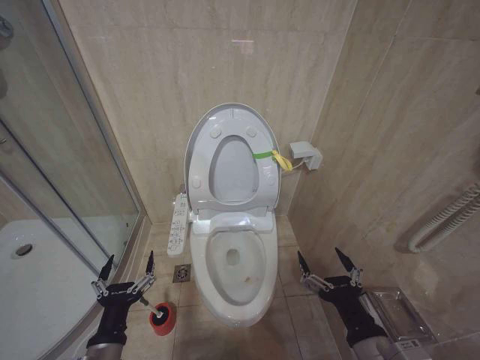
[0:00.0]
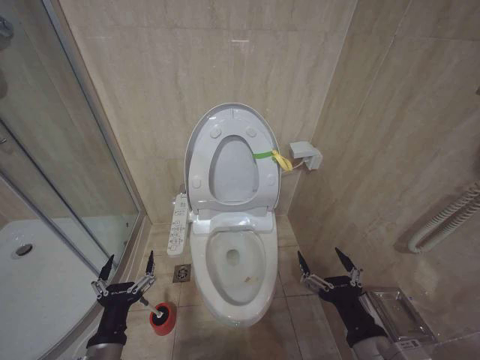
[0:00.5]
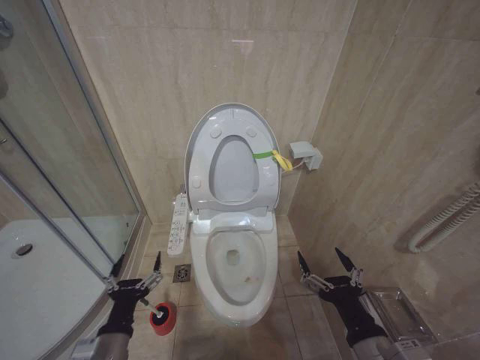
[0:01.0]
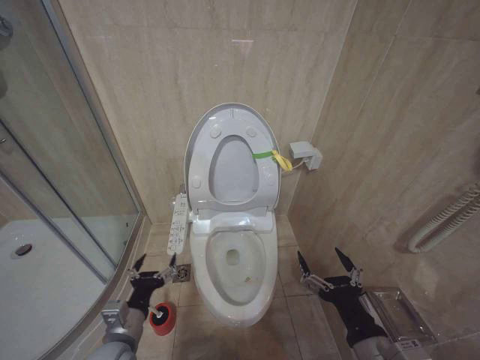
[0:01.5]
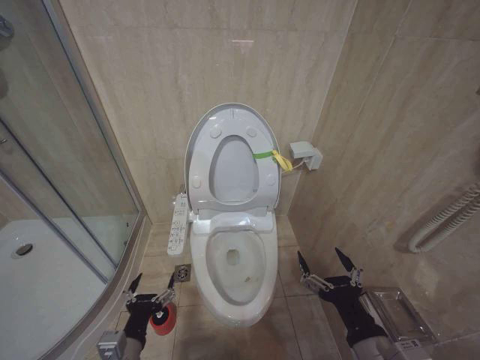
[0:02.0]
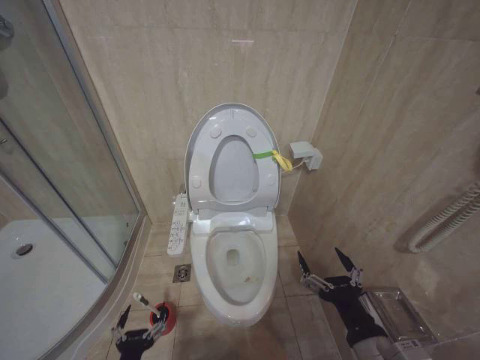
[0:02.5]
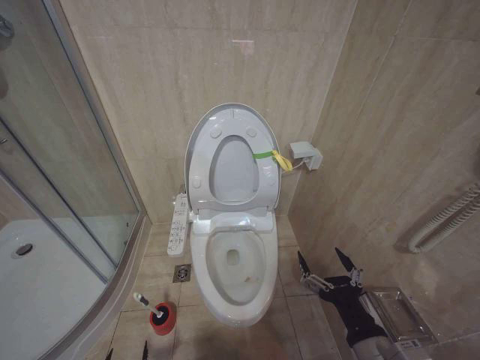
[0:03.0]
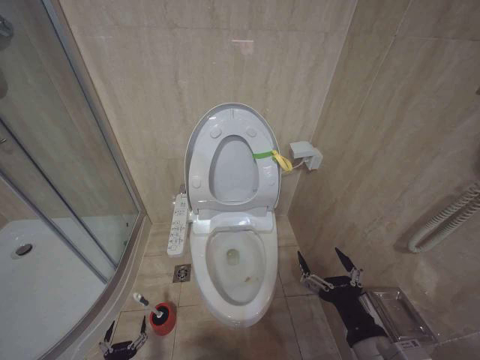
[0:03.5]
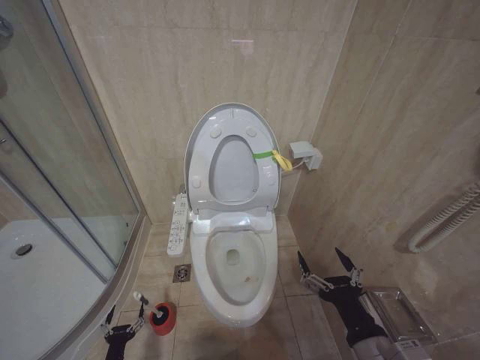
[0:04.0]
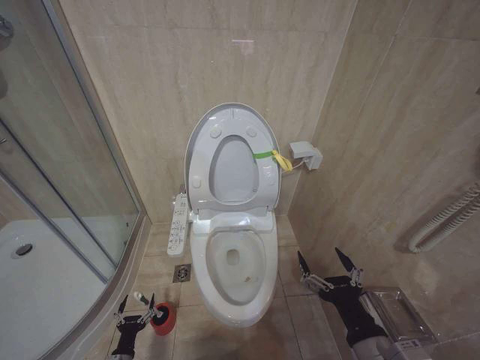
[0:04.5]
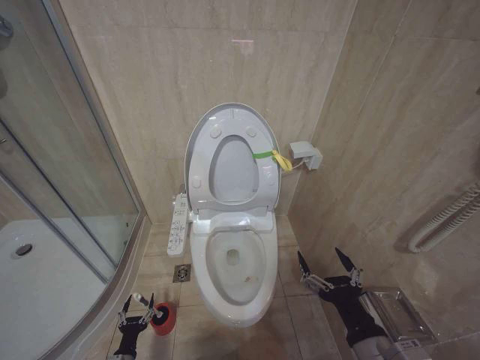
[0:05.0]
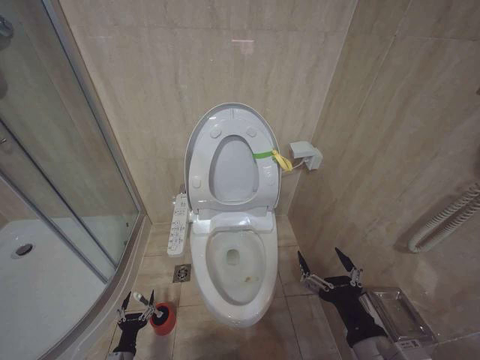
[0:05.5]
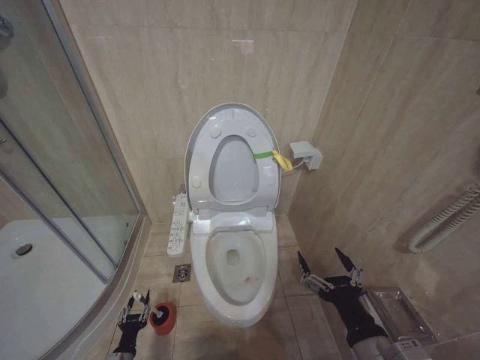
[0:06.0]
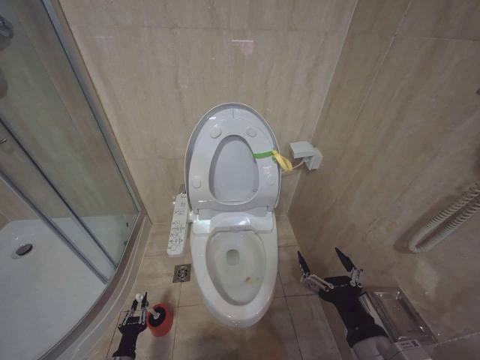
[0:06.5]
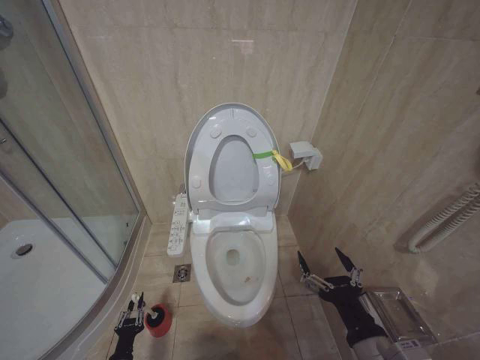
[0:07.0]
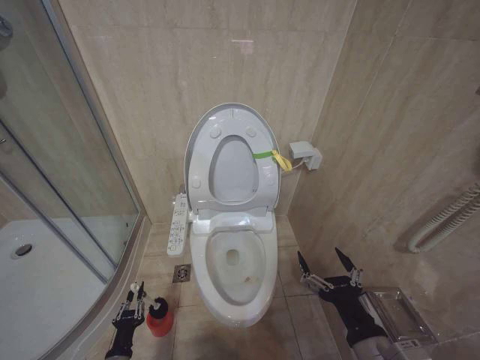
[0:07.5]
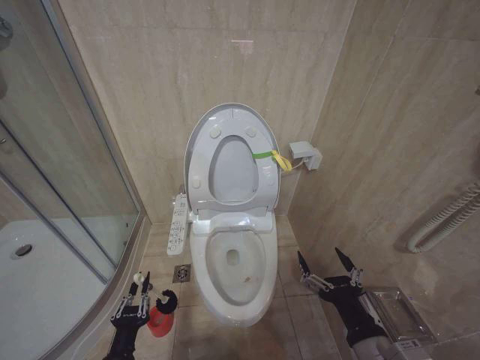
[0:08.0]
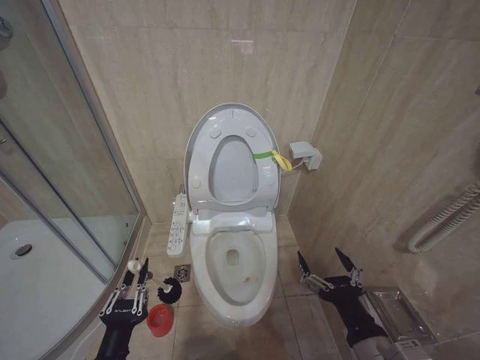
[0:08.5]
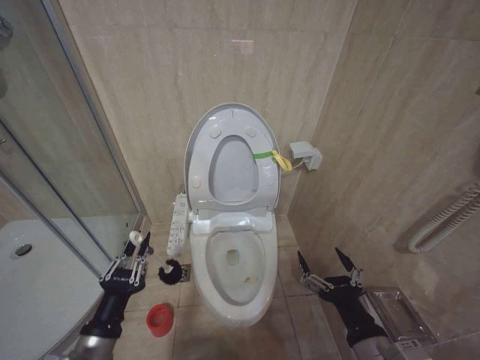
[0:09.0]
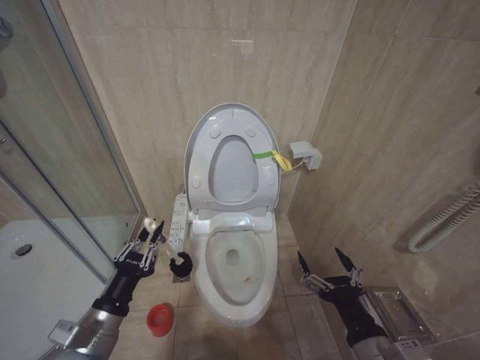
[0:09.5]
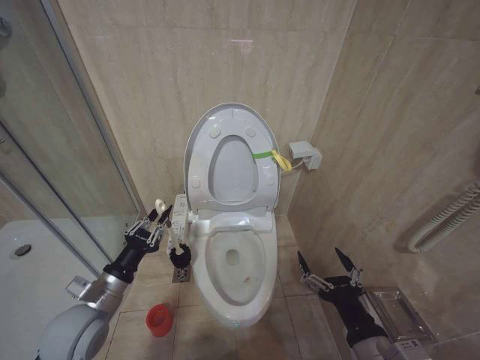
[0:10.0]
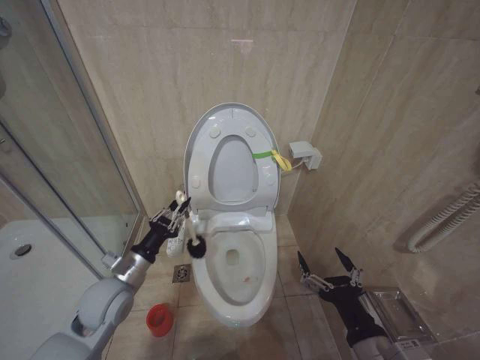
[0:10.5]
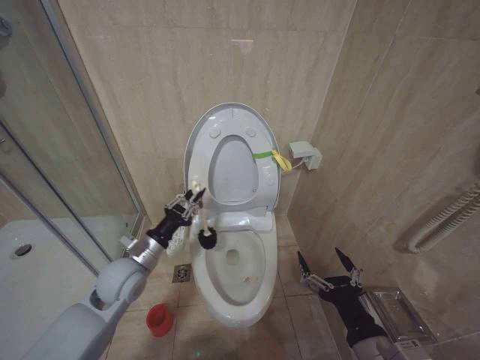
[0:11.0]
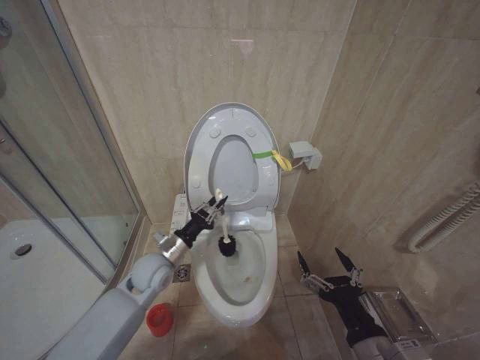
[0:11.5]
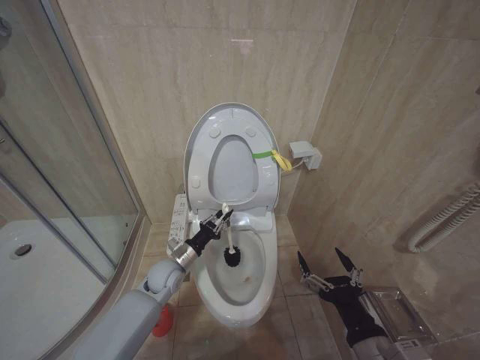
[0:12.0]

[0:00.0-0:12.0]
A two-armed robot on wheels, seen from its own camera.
Task of the whole recording: Open the toilet lid, clean the toilet bowl with a toilet brush, close the toilet lid, and flush.
2.0 to 4.0 s: The left gripper moves downward and to the left, roughly 30 cm.
4.0 to 6.0 s: The grippers move only a little.
6.0 to 8.0 s: The left gripper travels upward by some 20 cm, and closes its fingers.
8.0 to 10.0 s: The left gripper goes some 20 cm upward and forward.
10.0 to 12.0 s: The left gripper is displaced forward, to the right and downward by some 20 cm.

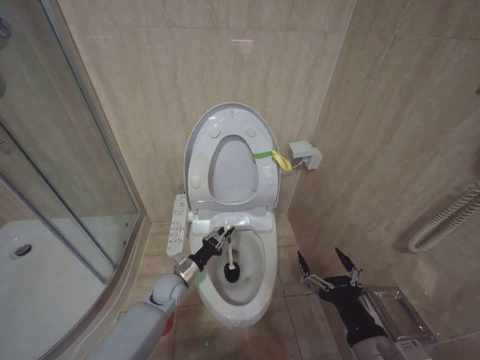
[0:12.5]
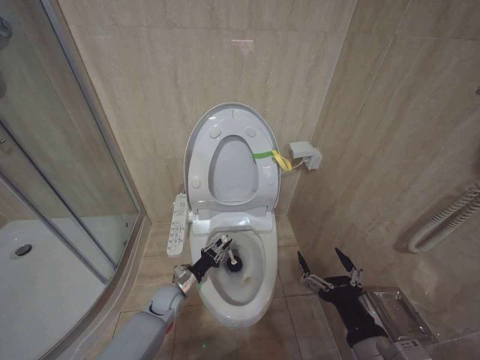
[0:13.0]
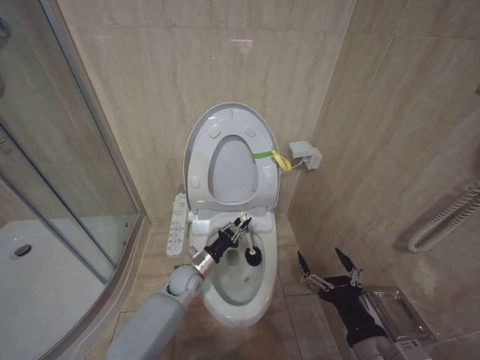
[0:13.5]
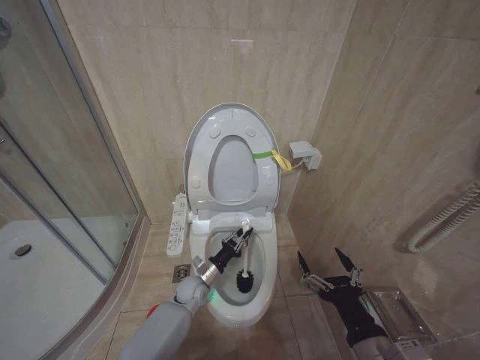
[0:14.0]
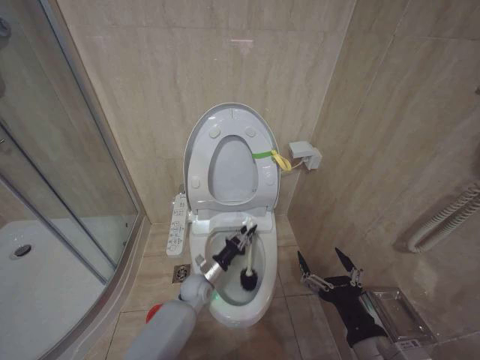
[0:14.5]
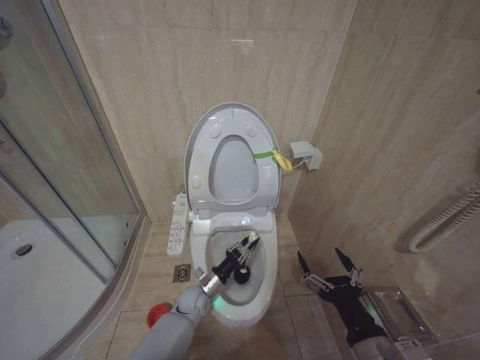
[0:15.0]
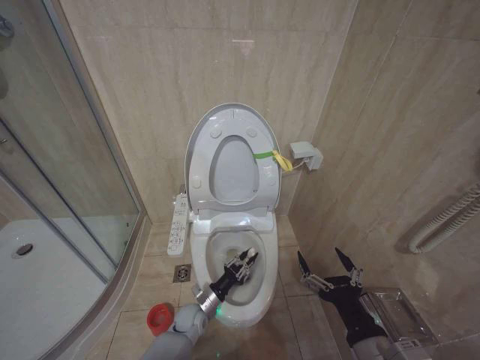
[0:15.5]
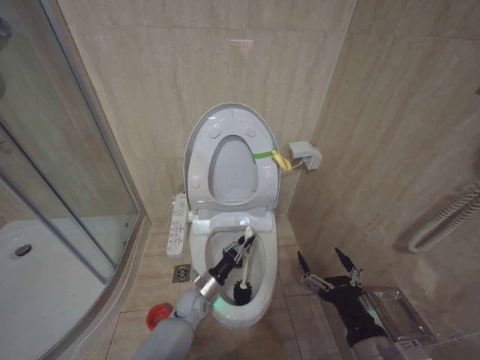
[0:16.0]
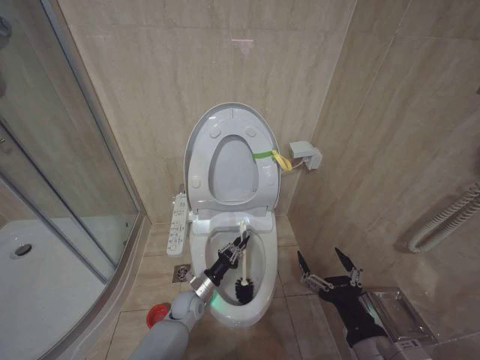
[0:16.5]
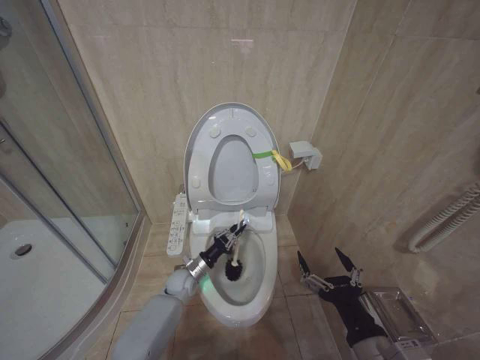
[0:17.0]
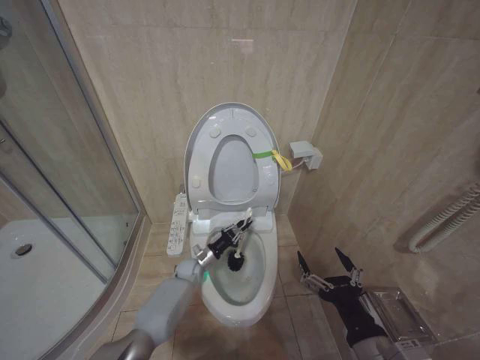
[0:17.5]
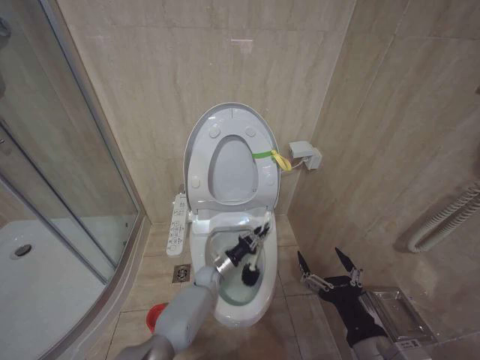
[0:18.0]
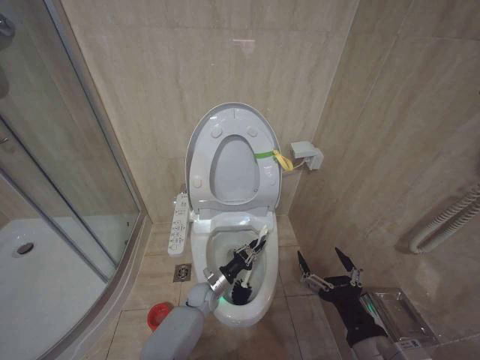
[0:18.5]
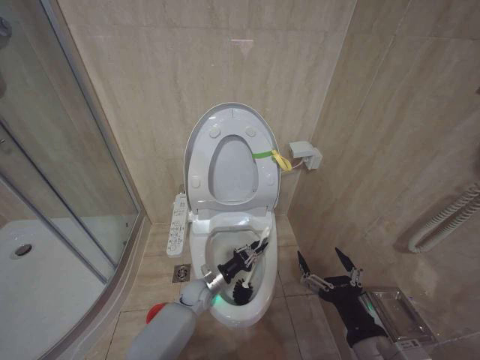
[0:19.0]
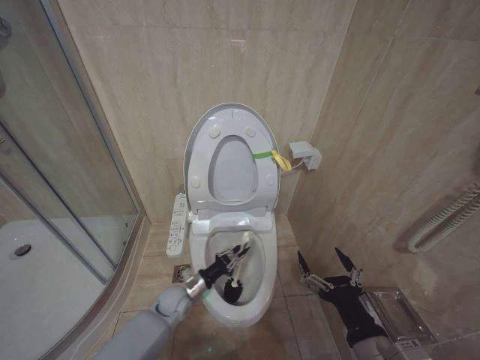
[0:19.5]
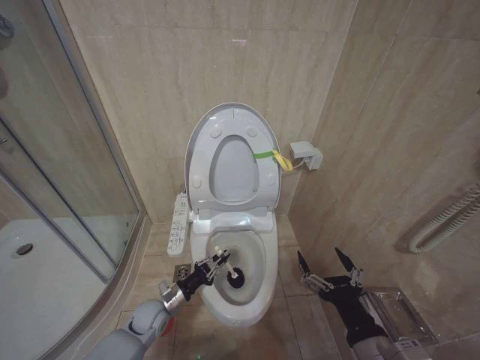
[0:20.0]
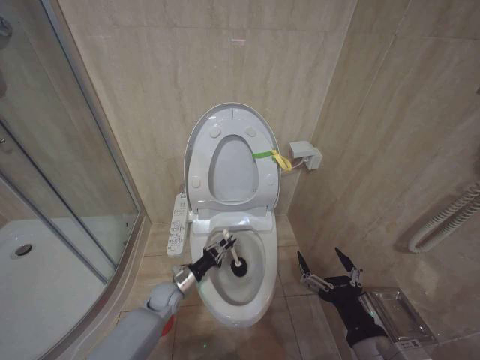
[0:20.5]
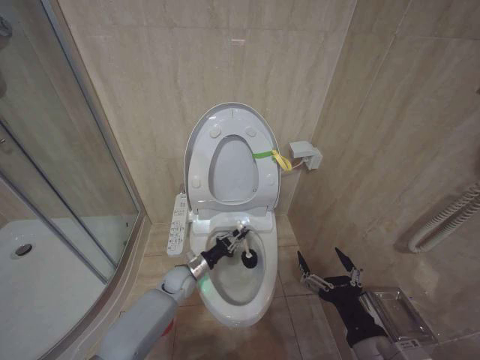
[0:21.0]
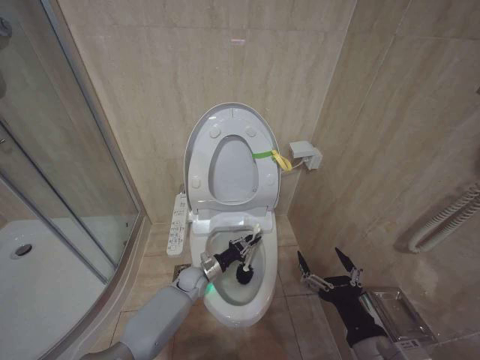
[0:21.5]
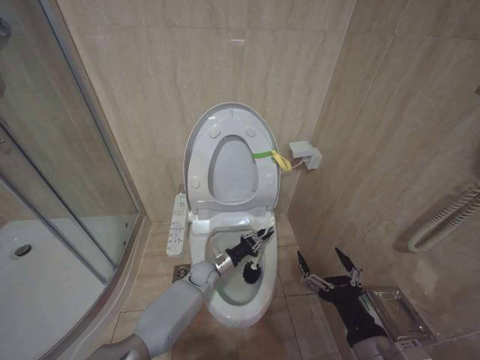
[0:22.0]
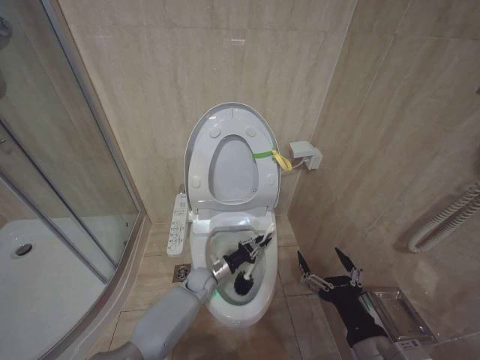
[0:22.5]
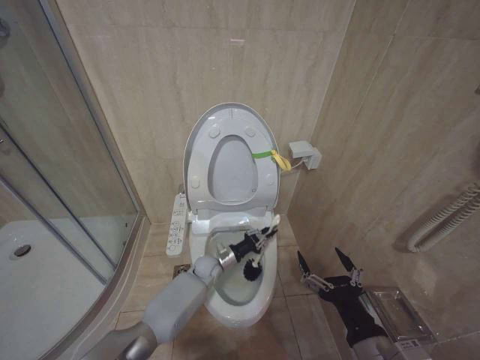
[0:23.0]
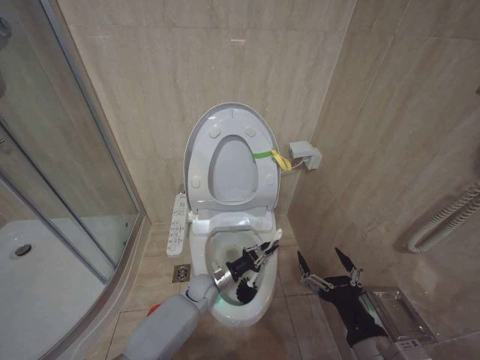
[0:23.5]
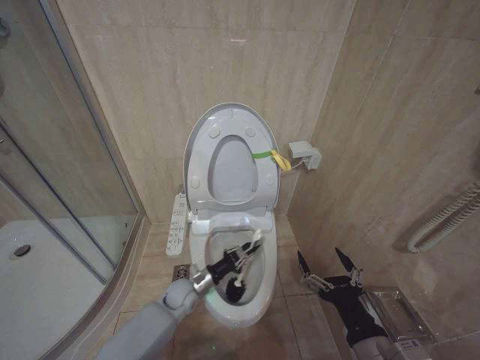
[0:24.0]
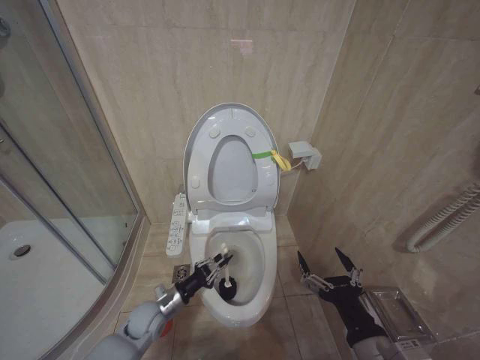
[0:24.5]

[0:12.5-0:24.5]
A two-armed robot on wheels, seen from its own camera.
Task of the whole recording: Open the toilet lid, clean the toilet bowl with a toilet brush, close the toilet lid, and flush.
12.5 to 14.5 s: The left gripper goes approximately 10 cm to the right.
16.5 to 18.5 s: The left gripper moves roughly 10 cm forward and comes back.
18.5 to 20.5 s: The left gripper moves to the left, roughly 10 cm.
20.5 to 22.5 s: The left gripper shifts some 10 cm to the right.
22.5 to 24.5 s: The left gripper shifts roughly 15 cm to the left and backward.

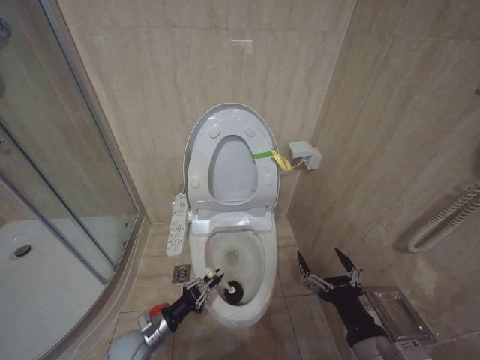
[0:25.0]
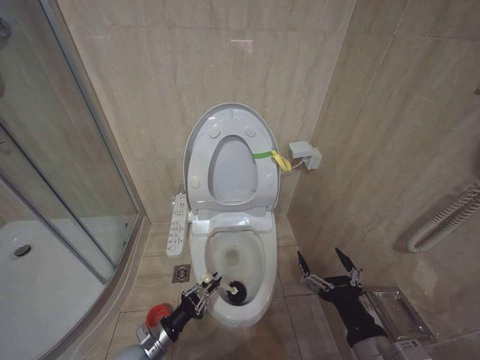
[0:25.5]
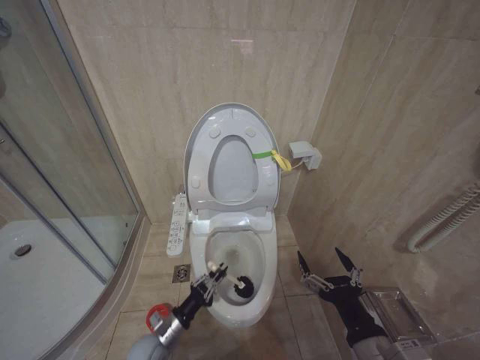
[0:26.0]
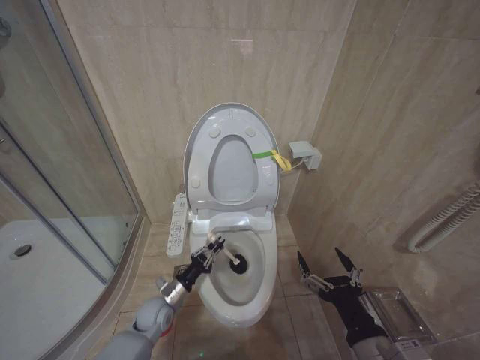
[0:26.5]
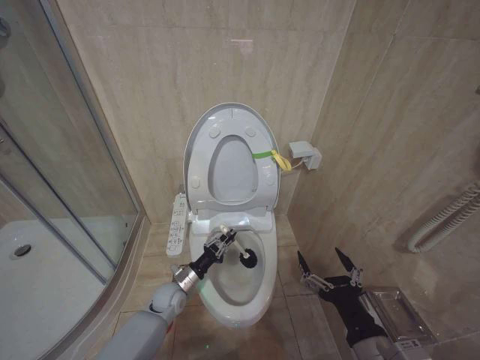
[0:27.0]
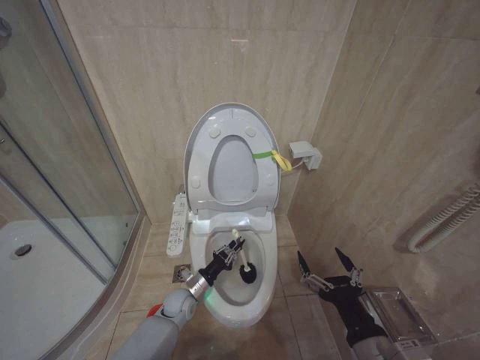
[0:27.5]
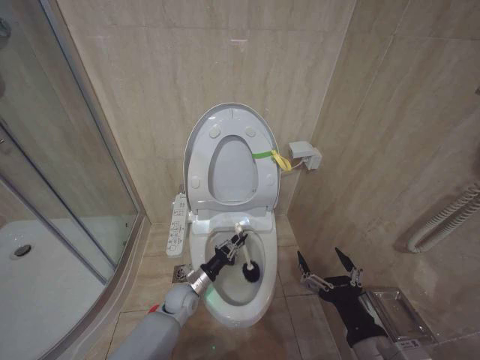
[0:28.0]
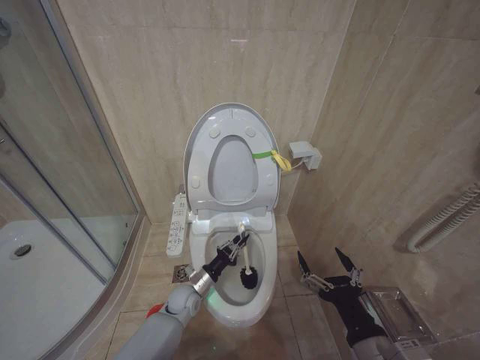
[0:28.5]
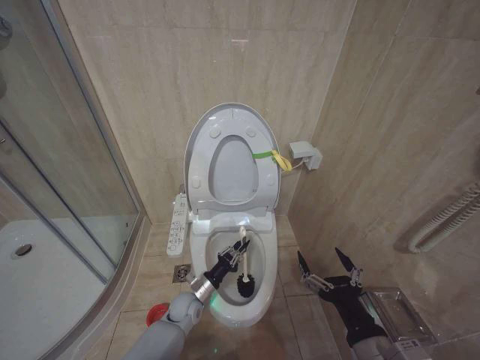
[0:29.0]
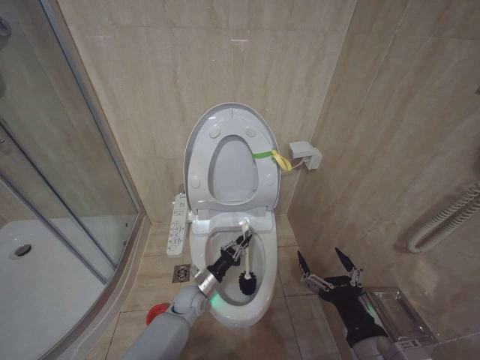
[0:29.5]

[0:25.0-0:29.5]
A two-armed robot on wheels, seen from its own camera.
Task of the whole recording: Open the toilet lid, clean the toilet bowl with a toilet brush, close the toilet lid, and flush.
25.0 to 27.0 s: The left gripper travels forward and to the right by roughly 15 cm.
27.0 to 29.5 s: The left gripper travels to the right by approximately 5 cm.
